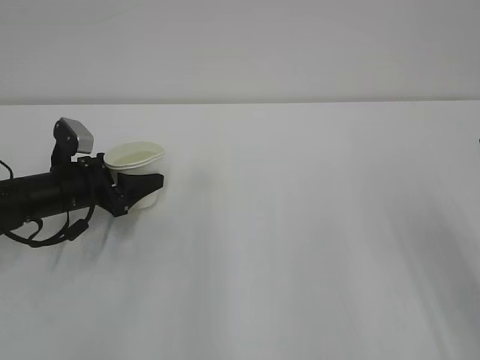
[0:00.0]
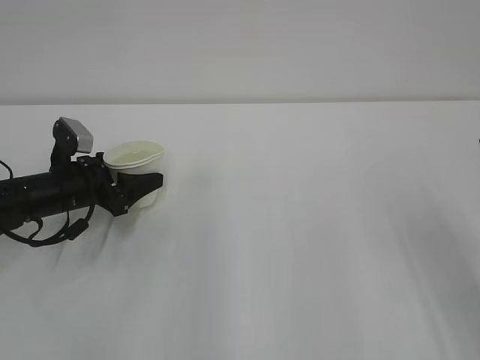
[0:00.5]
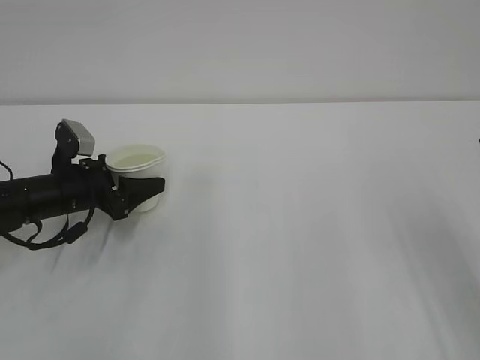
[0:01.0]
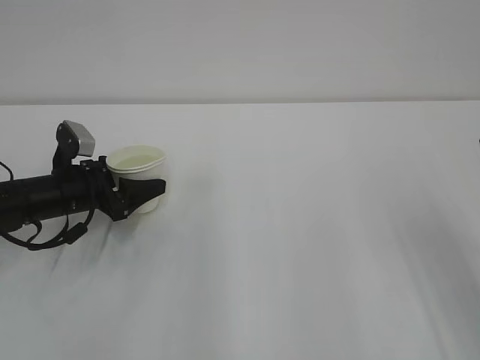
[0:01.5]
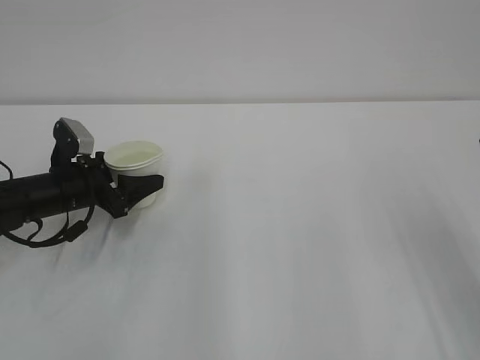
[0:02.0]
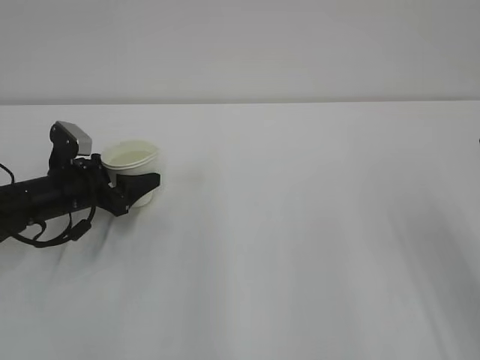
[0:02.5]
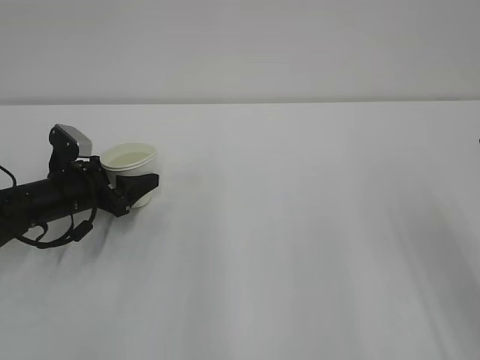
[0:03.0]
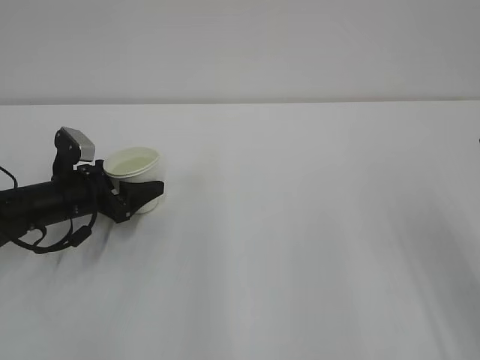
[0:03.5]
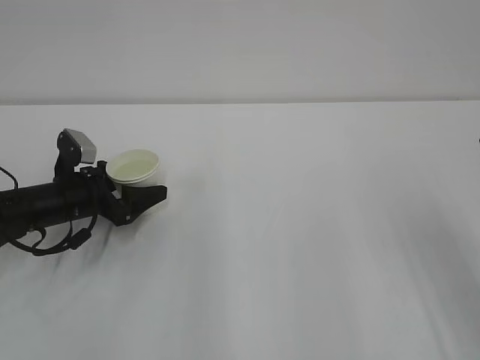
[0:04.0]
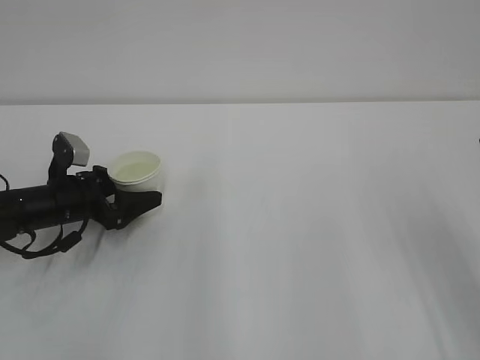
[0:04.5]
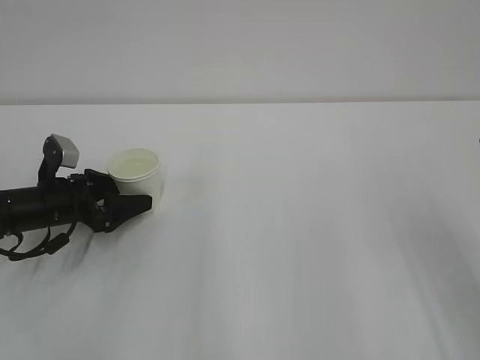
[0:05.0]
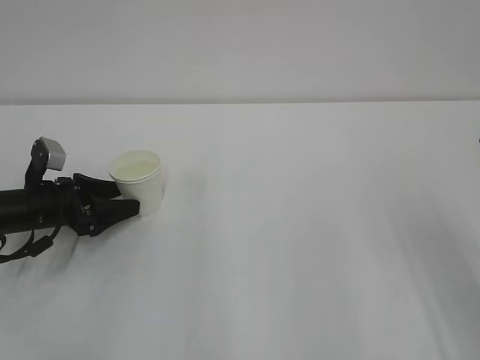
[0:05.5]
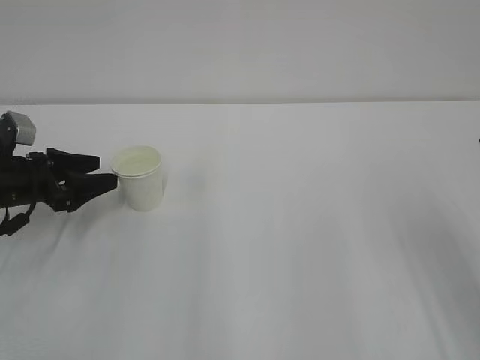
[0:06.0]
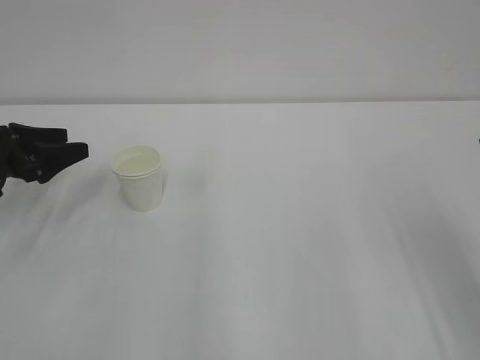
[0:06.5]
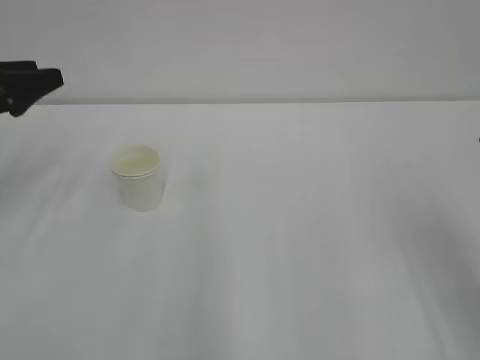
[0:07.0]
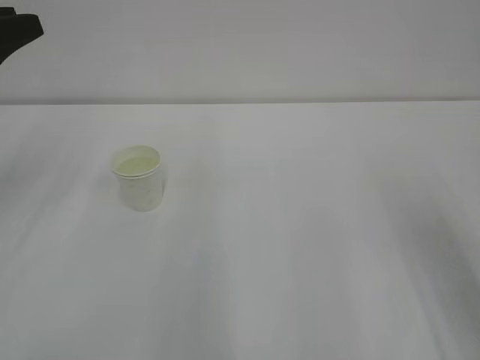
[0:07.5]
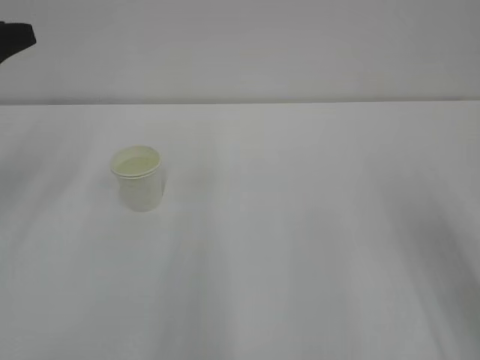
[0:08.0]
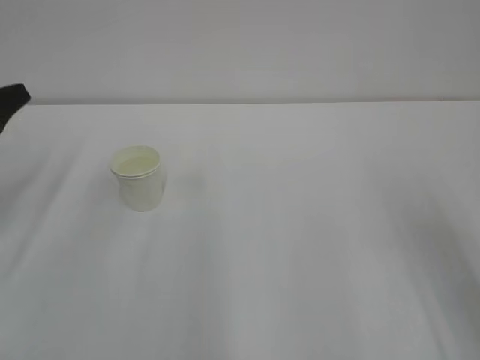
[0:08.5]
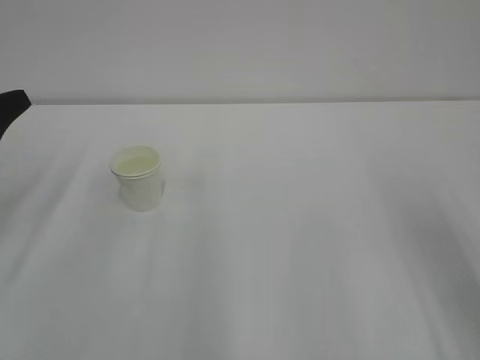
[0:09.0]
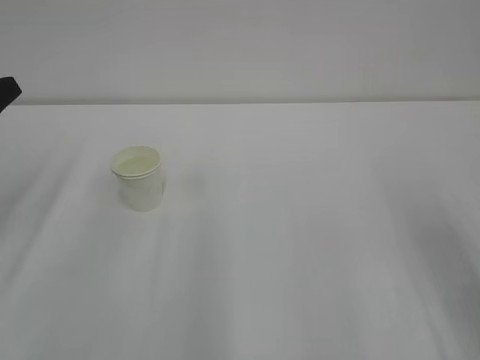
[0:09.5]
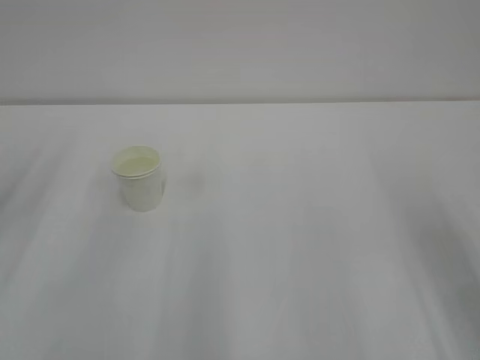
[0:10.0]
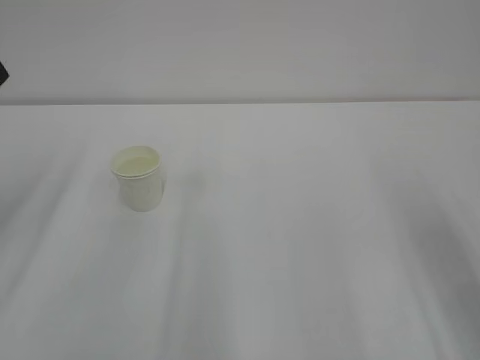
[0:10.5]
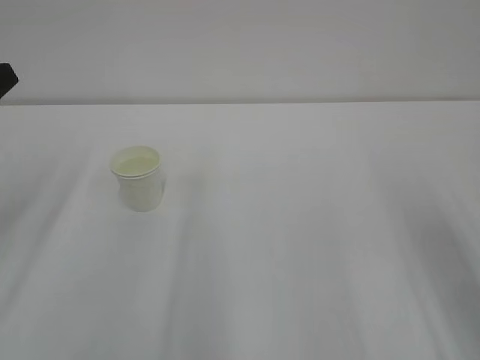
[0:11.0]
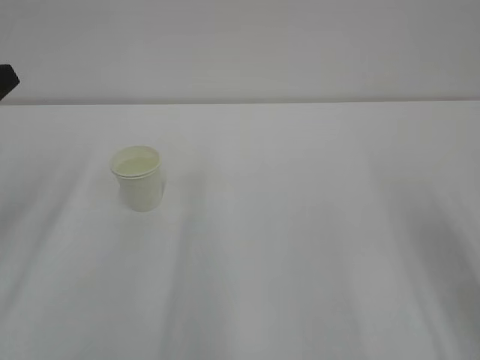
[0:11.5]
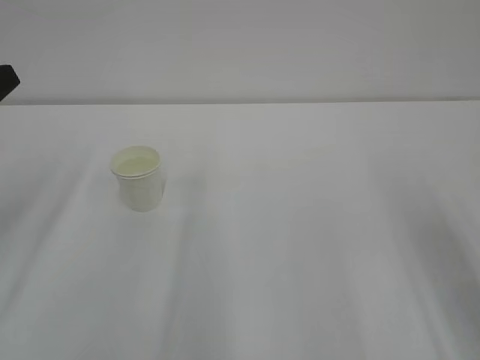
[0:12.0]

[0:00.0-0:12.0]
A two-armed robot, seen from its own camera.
0:00.0 to 0:02.0: Both grippers stay about where they are.
0:02.0 to 0:04.0: The grippers make only small movements.
0:04.0 to 0:06.0: The left gripper travels to the left by approximately 5 cm.
0:06.0 to 0:08.0: The left gripper moves upward, some 20 cm.

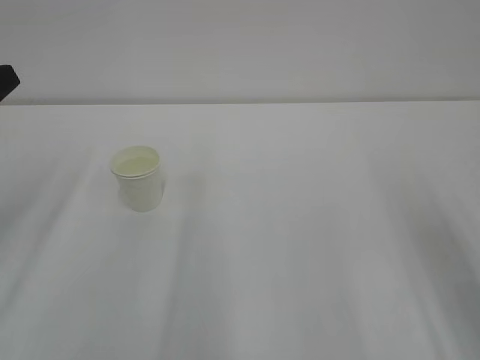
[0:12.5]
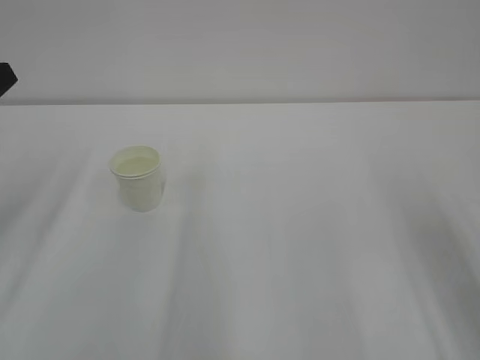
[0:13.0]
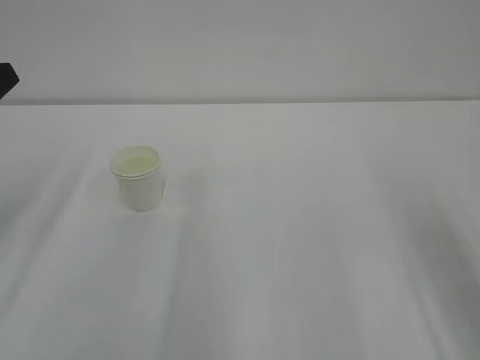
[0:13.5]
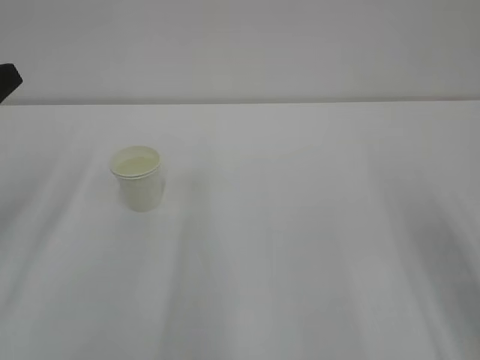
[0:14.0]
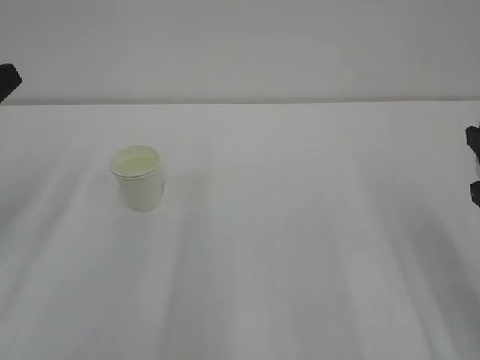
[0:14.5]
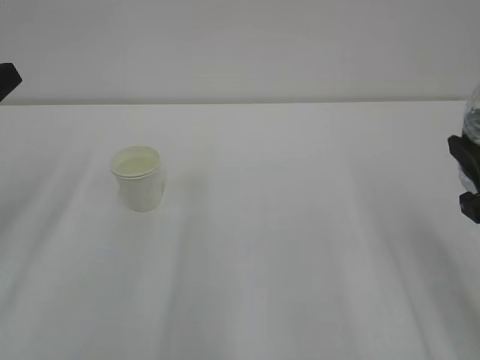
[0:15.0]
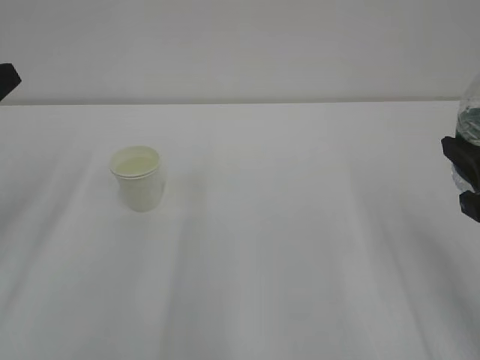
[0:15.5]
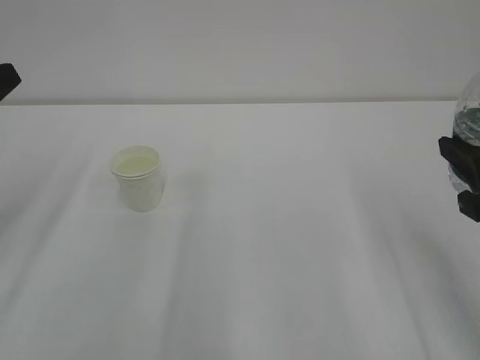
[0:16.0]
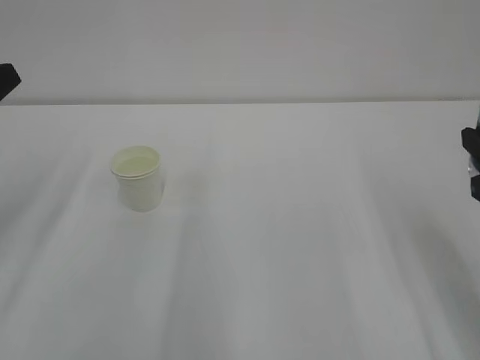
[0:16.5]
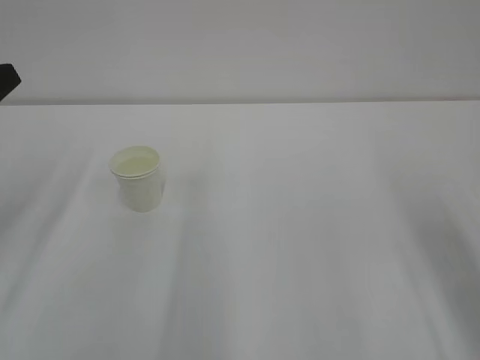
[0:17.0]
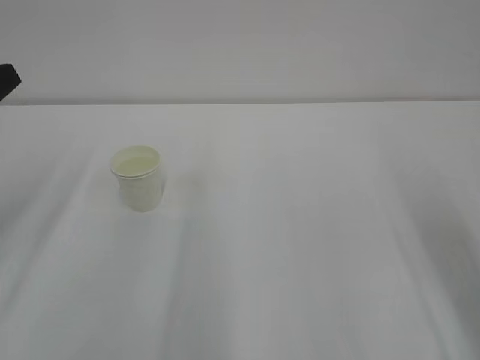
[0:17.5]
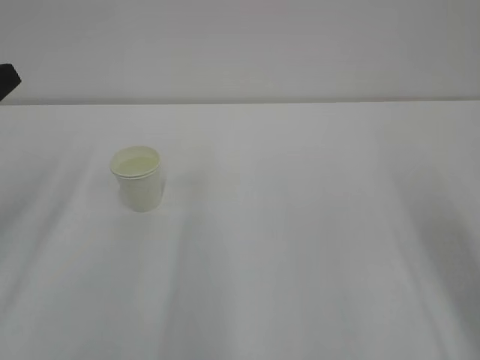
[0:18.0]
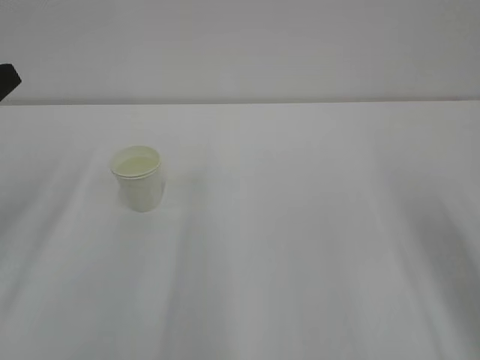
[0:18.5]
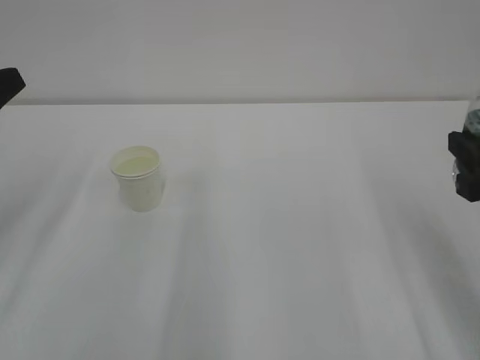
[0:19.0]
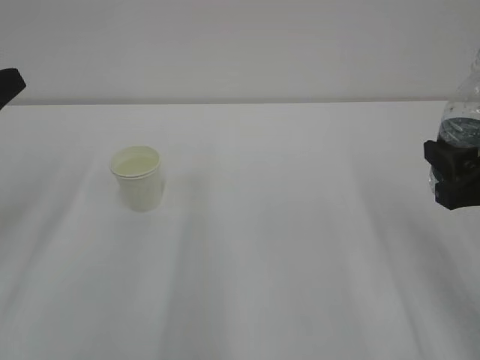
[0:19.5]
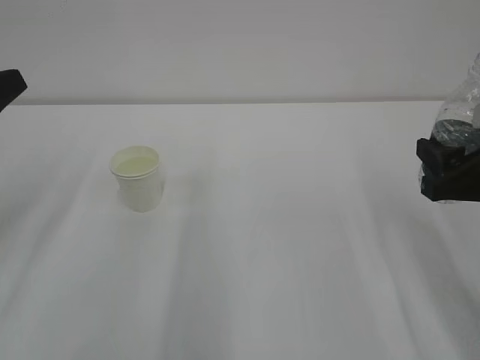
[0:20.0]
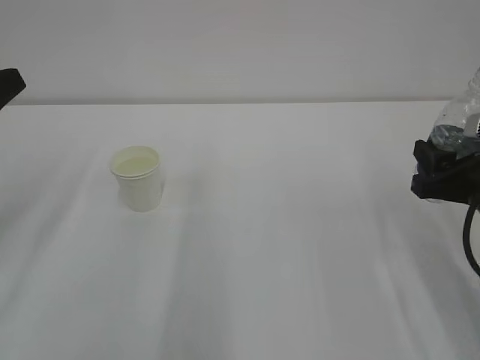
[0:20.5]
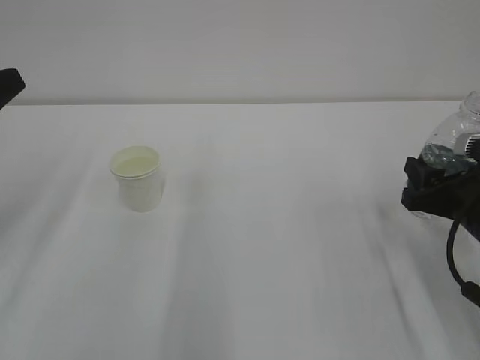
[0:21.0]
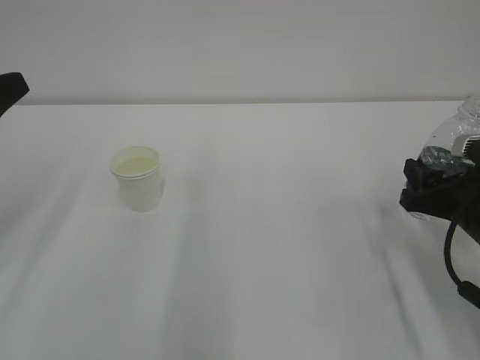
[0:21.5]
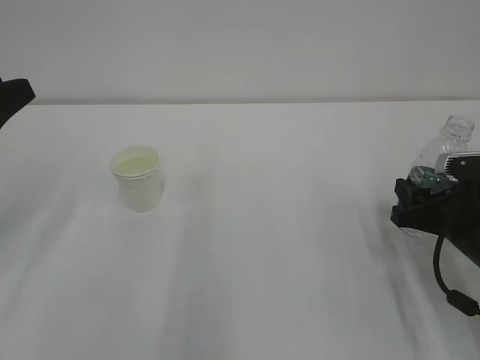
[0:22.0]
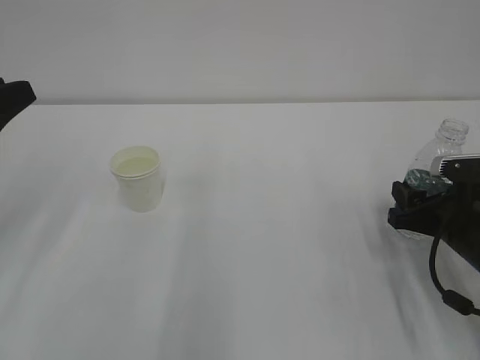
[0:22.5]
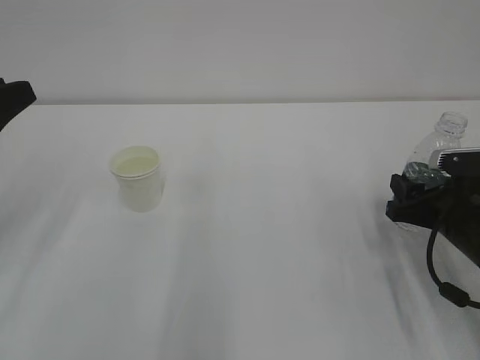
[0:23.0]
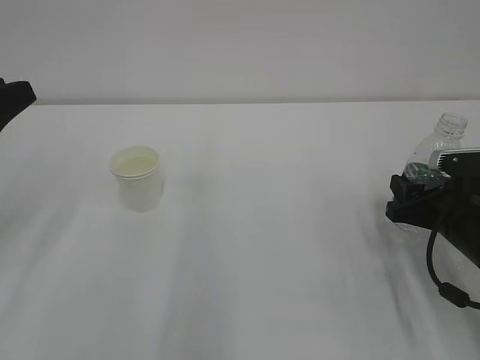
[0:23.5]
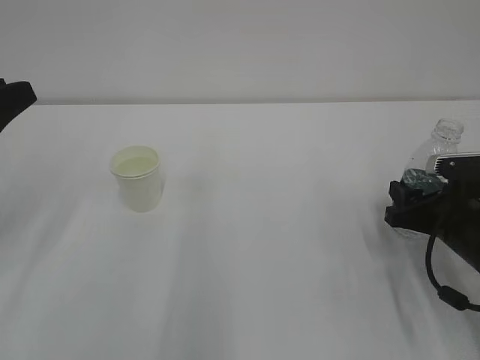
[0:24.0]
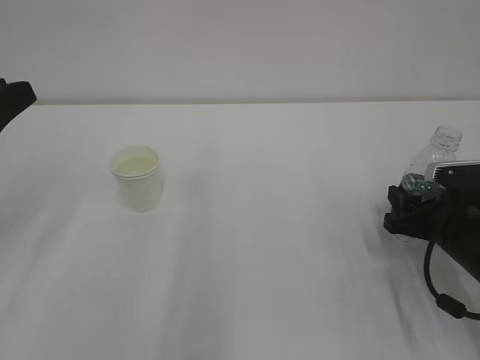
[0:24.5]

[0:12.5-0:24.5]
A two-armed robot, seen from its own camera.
0:18.5 to 0:20.5: The right gripper shifts some 10 cm downward and forward.
0:20.5 to 0:22.5: The right gripper goes roughly 5 cm downward.
0:22.5 to 0:24.5: Both grippers stay put.

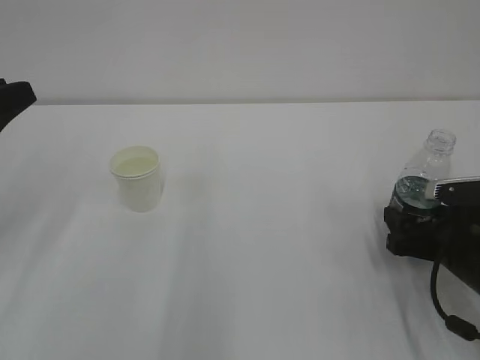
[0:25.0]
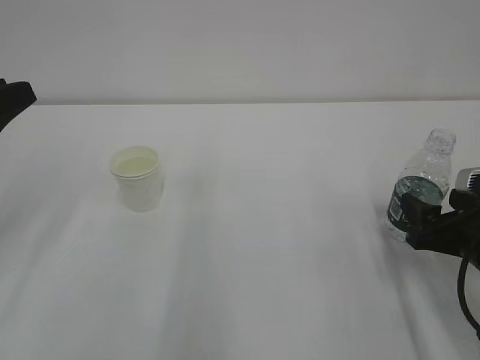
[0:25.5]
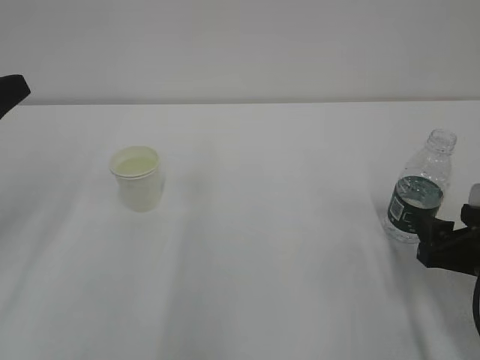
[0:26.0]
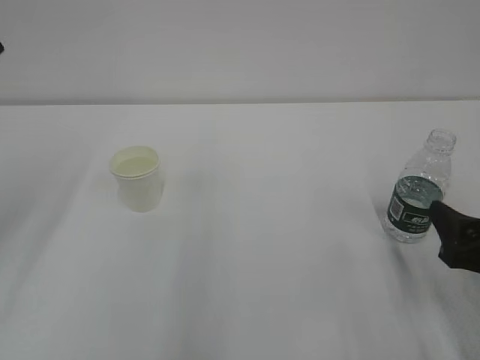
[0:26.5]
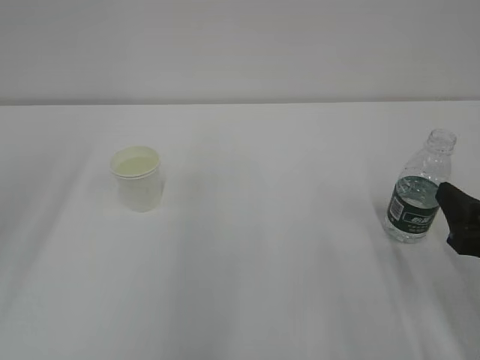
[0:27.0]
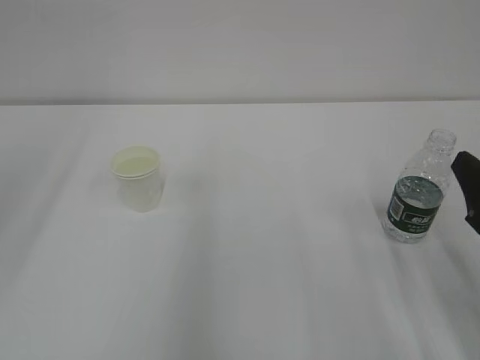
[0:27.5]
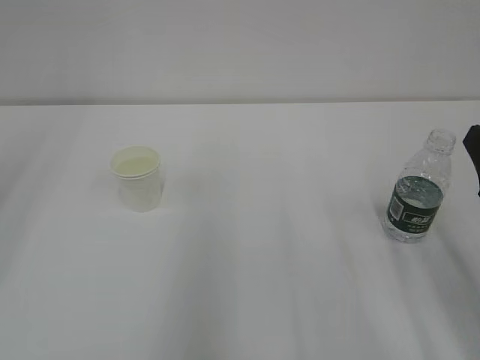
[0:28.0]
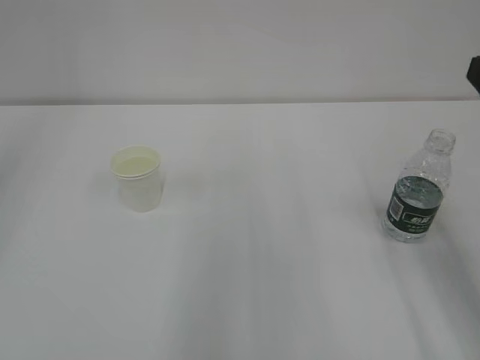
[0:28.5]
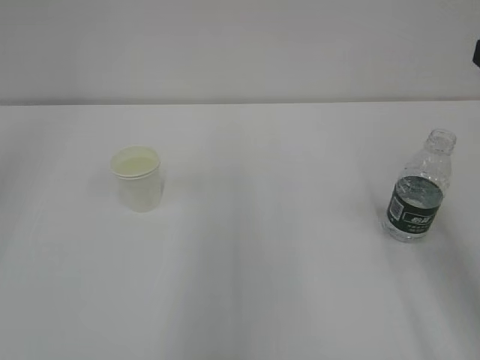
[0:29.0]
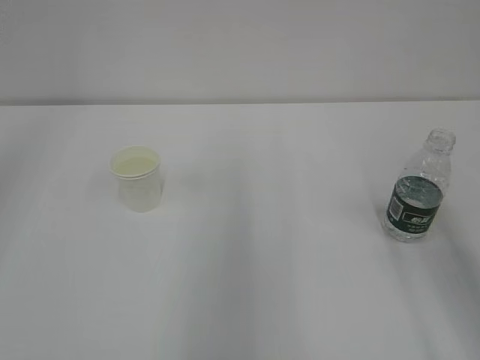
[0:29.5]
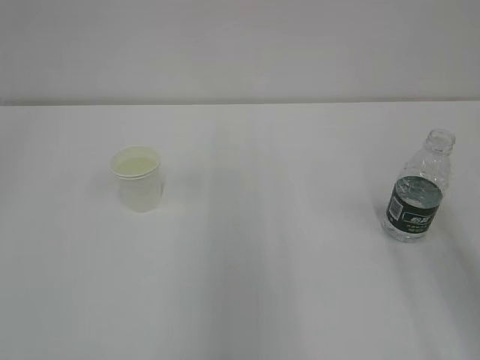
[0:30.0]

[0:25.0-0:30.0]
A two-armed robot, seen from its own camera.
0:25.0 to 0:27.5: The right gripper heads upward and backward, covering approximately 15 cm; the left gripper travels upward by about 15 cm.
0:27.5 to 0:30.0: The right gripper travels upward by roughly 15 cm.
